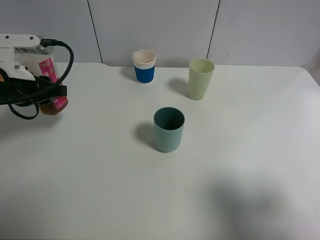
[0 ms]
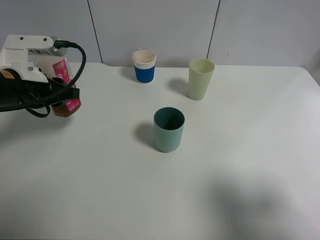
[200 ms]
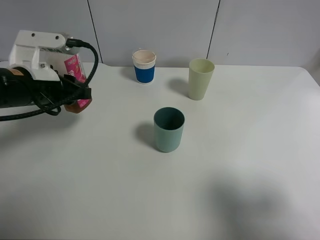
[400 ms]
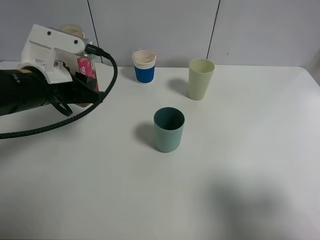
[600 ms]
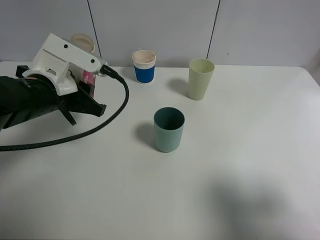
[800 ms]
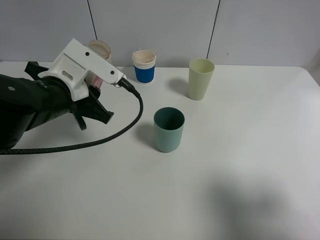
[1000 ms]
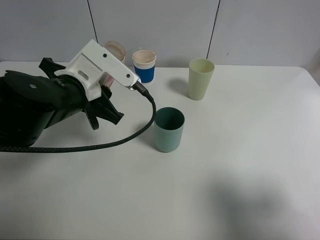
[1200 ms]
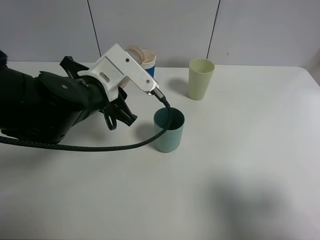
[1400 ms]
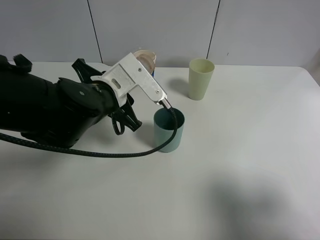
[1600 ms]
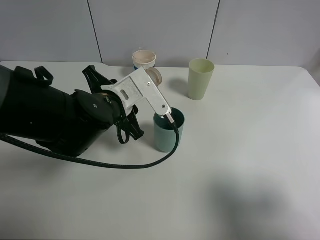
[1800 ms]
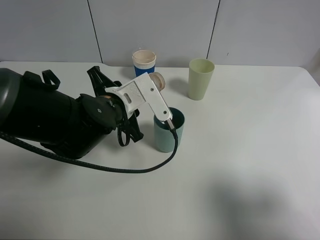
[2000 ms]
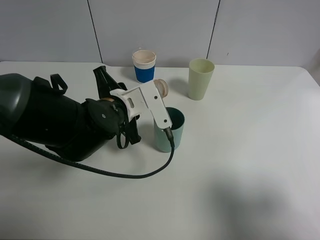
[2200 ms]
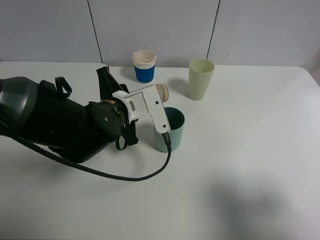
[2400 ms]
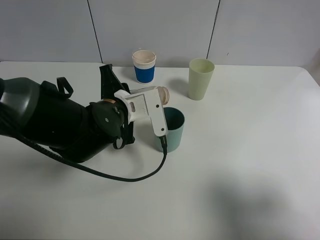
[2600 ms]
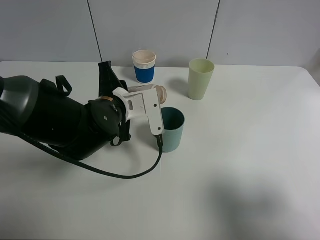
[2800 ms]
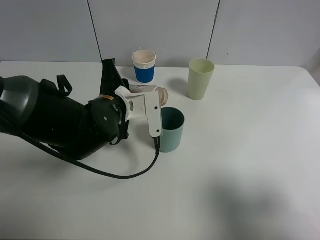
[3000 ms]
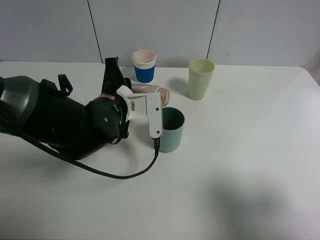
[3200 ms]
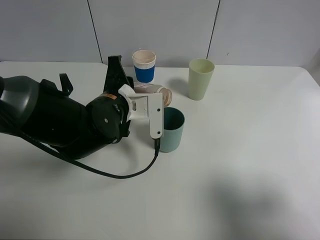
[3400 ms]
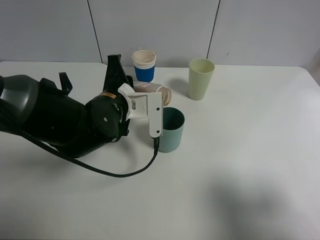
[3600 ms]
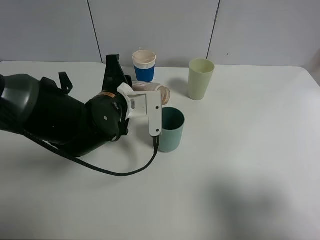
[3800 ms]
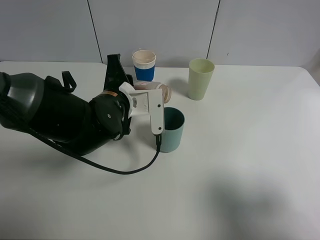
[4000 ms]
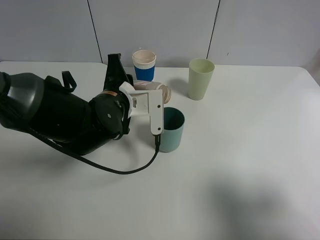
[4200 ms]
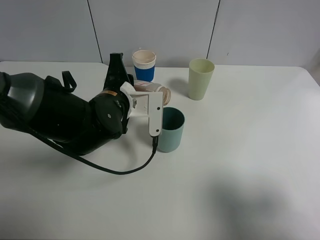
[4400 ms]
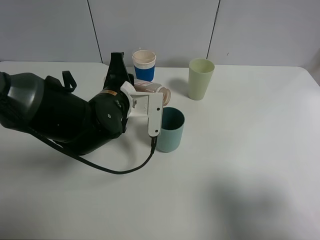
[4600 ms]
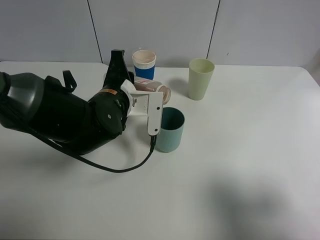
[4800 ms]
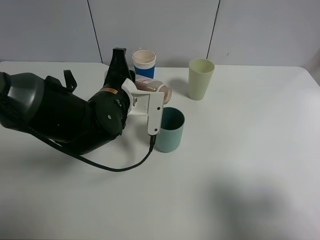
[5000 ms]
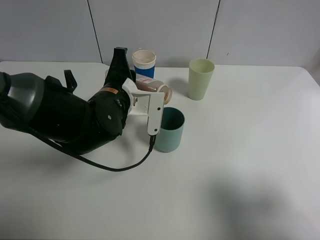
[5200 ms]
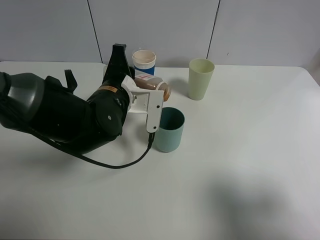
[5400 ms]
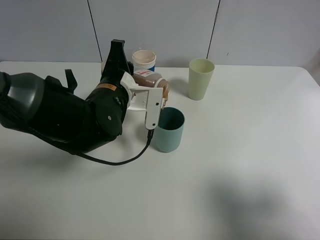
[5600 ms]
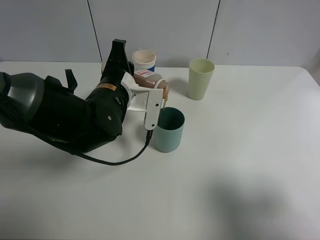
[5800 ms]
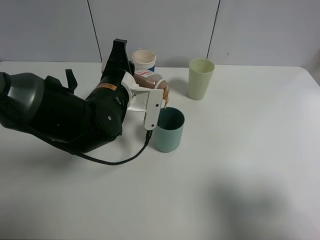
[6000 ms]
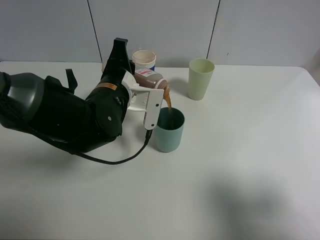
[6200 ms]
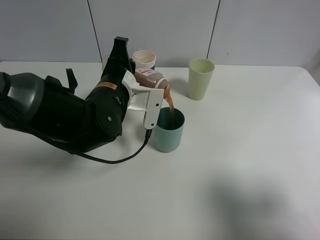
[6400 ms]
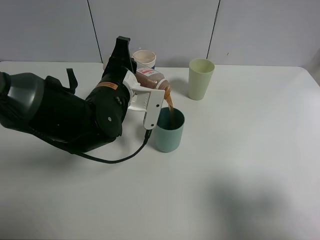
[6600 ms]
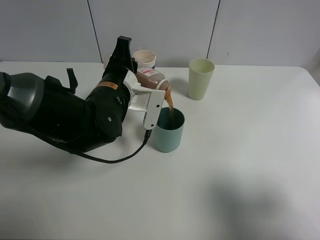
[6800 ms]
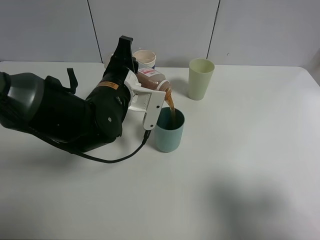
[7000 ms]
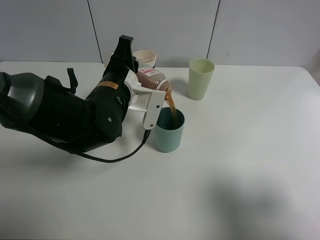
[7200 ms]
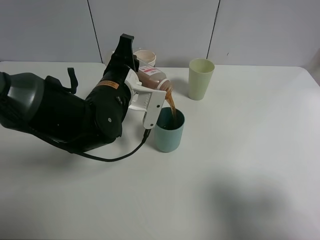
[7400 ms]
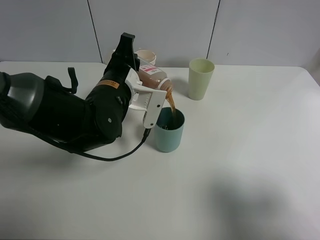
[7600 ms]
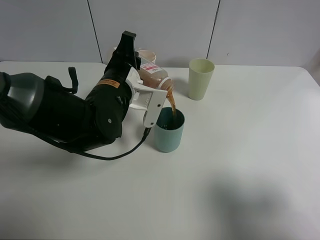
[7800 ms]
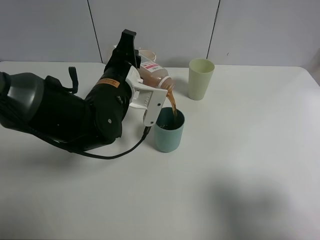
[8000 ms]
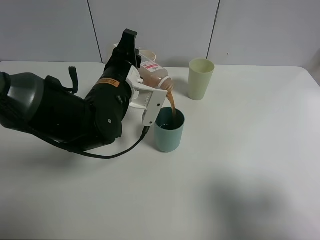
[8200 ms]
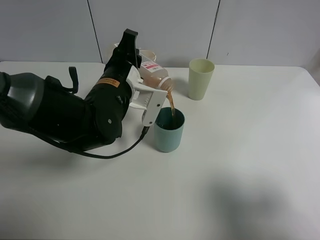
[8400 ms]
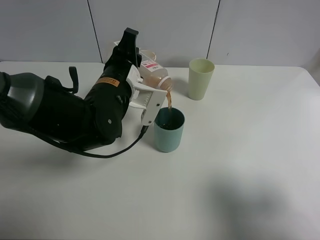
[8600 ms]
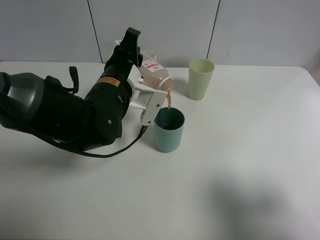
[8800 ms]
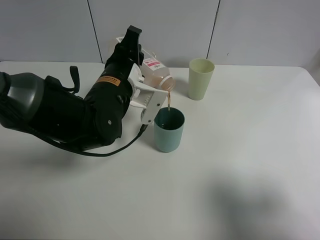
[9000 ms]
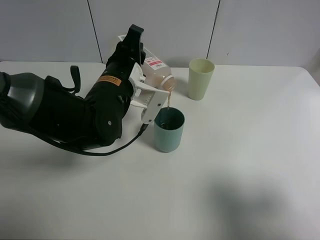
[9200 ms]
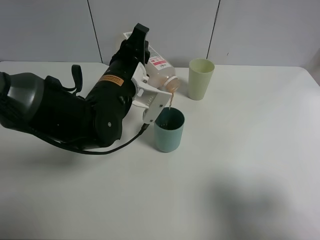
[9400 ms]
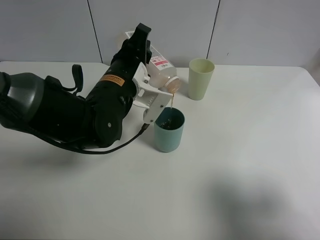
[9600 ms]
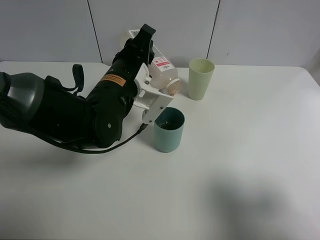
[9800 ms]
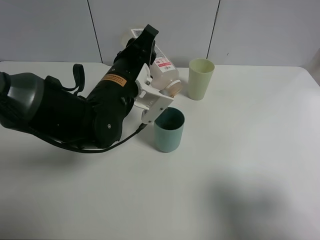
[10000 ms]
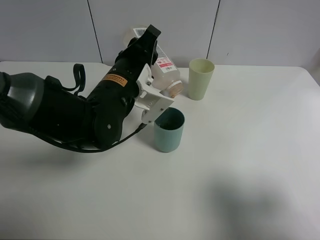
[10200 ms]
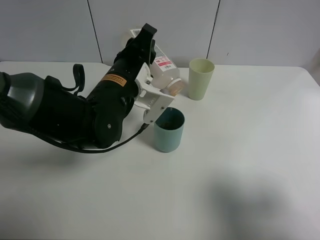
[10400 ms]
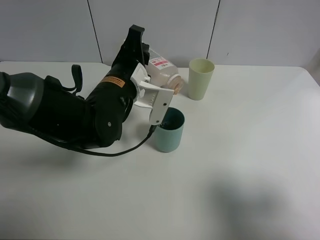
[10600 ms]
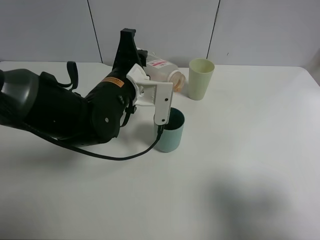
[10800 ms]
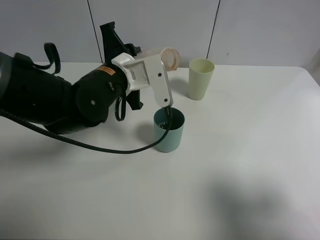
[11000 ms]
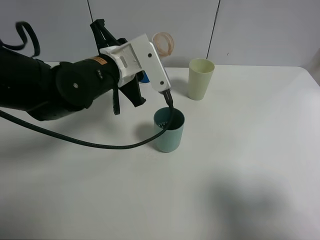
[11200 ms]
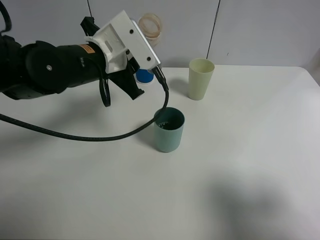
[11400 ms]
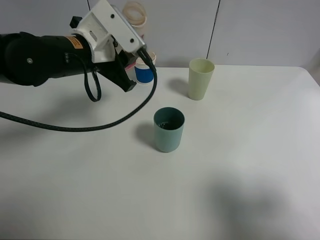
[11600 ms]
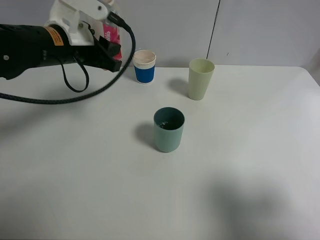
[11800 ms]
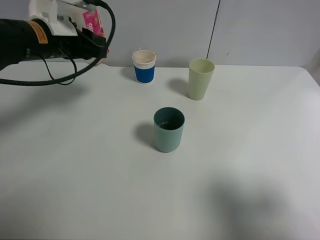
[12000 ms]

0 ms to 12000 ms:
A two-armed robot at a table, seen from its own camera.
Task of the whole recording: use a clamp to hold the bottle of the drink, pour the beverage into a random cup, then clamp the cup containing the drink and pour the drink into another random cup.
Step, 0 ms to 10400 ms: Pour the drink into the blue plastic cup with left gripper.
0 ms to 1600 ms: The left gripper is displaced to the right by some 15 cm.
3000 ms to 6000 ms: There are only small adjustments of the grippers.
6000 ms to 9000 ms: The grippers stay close to where they were, moving slightly.
9000 ms to 10400 ms: There are only small adjustments of the grippers.
10400 ms to 12000 ms: The left gripper travels to the left, forward and upward by approximately 15 cm.

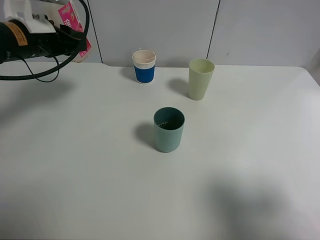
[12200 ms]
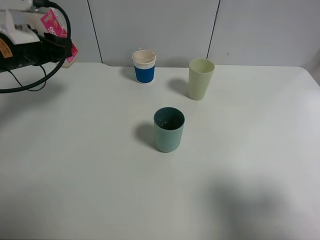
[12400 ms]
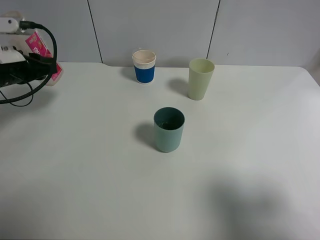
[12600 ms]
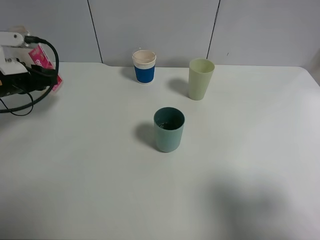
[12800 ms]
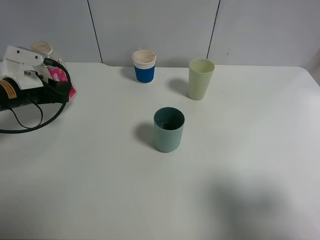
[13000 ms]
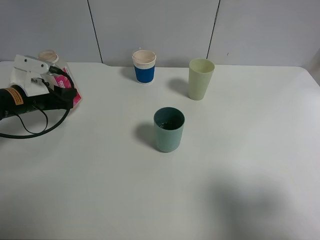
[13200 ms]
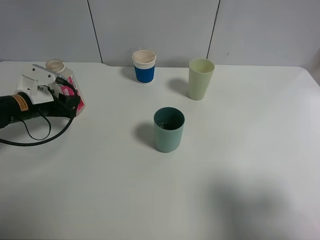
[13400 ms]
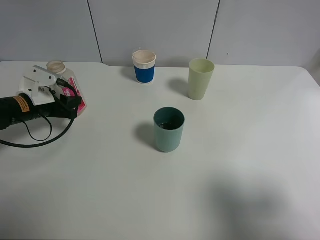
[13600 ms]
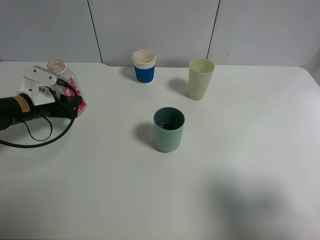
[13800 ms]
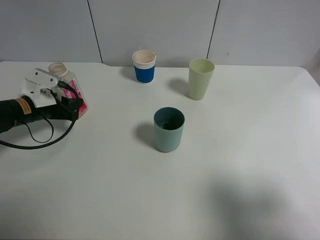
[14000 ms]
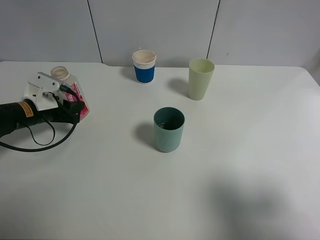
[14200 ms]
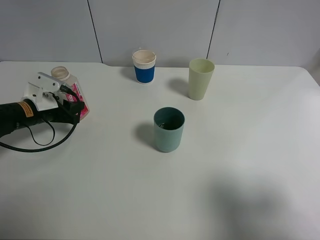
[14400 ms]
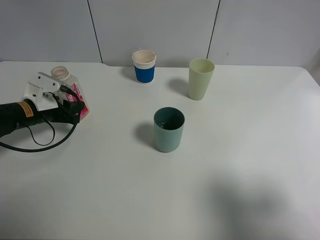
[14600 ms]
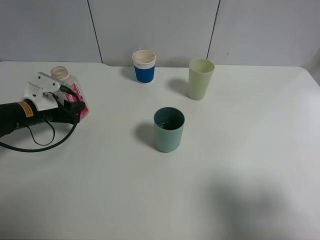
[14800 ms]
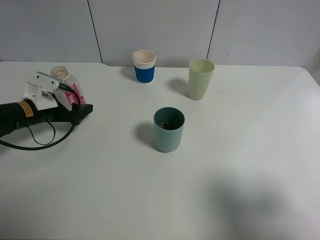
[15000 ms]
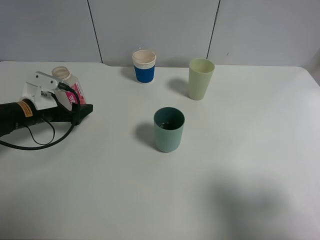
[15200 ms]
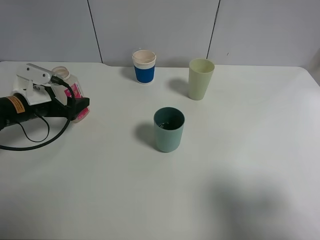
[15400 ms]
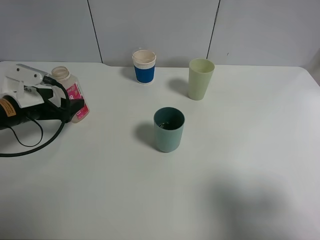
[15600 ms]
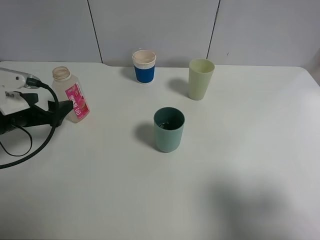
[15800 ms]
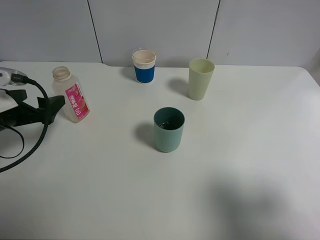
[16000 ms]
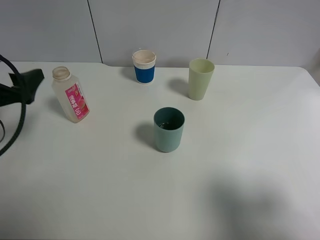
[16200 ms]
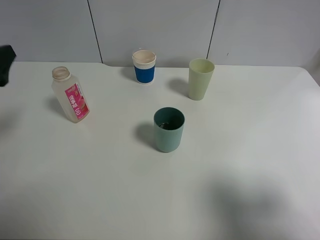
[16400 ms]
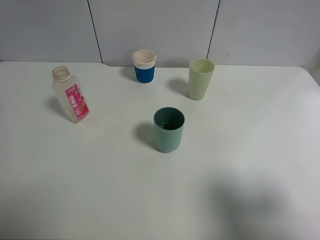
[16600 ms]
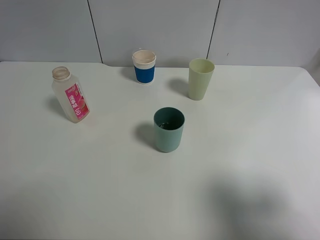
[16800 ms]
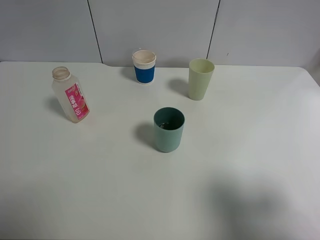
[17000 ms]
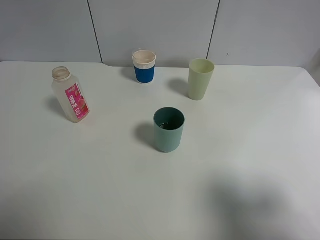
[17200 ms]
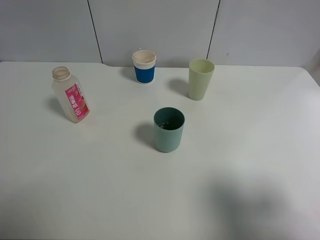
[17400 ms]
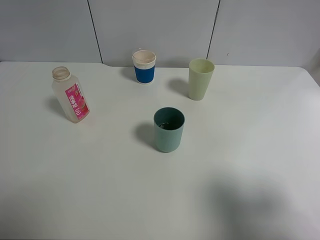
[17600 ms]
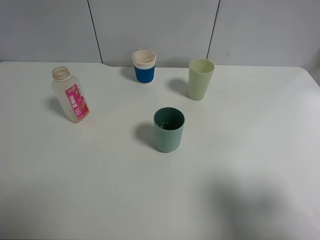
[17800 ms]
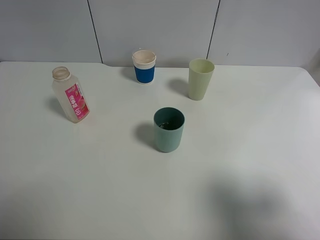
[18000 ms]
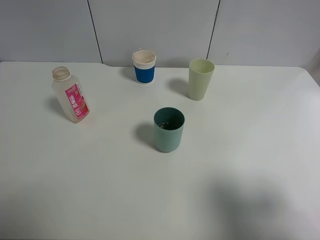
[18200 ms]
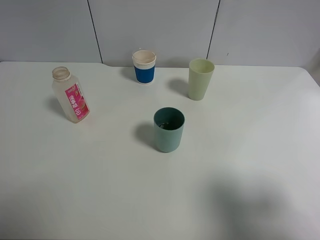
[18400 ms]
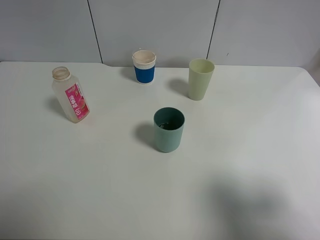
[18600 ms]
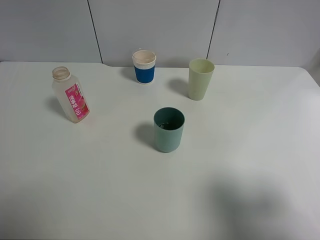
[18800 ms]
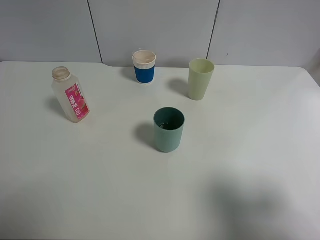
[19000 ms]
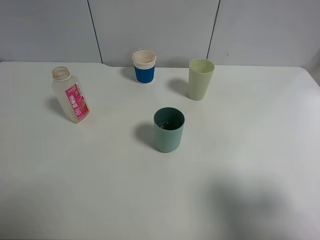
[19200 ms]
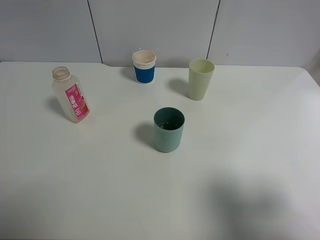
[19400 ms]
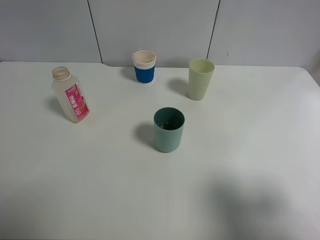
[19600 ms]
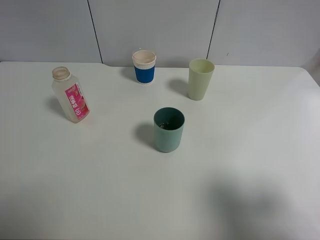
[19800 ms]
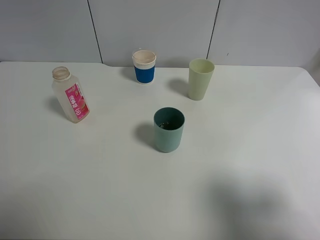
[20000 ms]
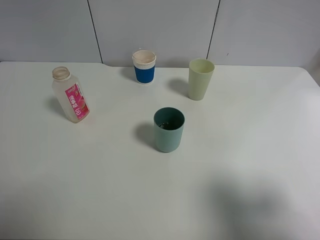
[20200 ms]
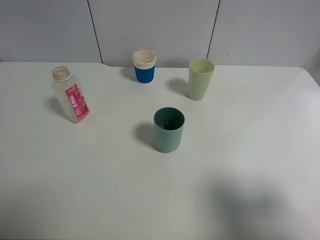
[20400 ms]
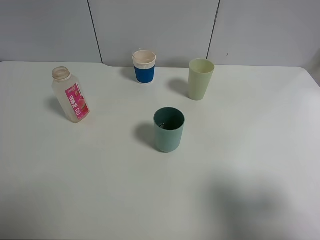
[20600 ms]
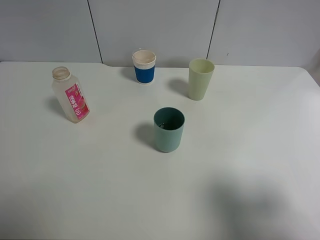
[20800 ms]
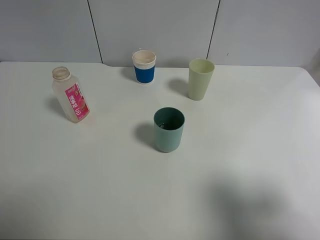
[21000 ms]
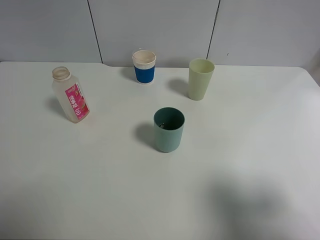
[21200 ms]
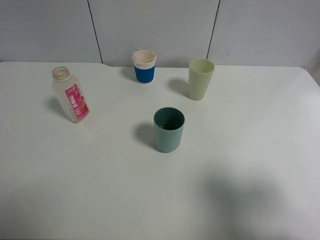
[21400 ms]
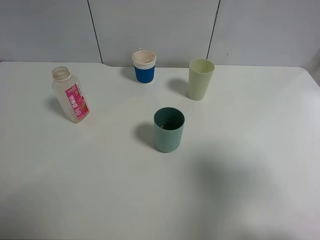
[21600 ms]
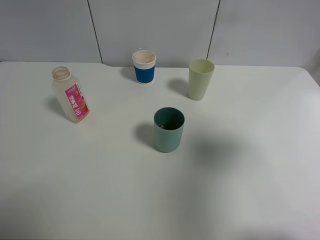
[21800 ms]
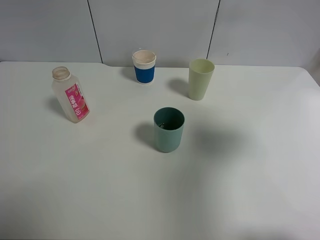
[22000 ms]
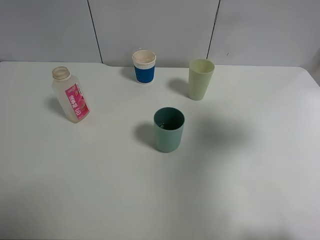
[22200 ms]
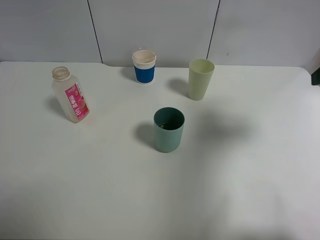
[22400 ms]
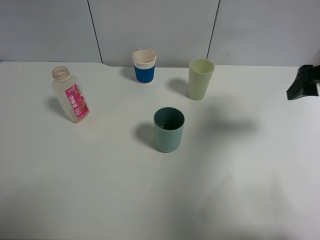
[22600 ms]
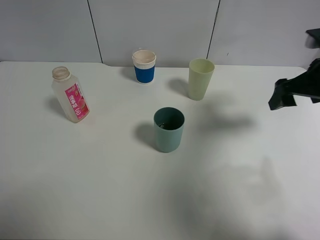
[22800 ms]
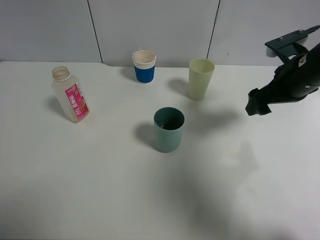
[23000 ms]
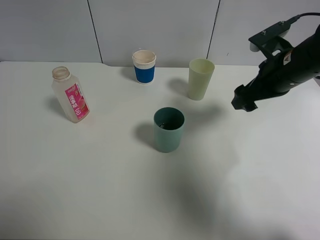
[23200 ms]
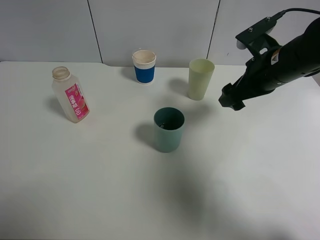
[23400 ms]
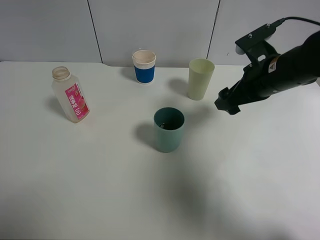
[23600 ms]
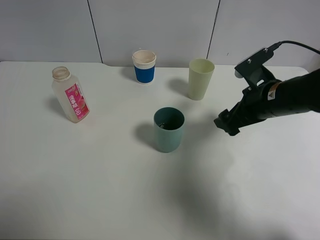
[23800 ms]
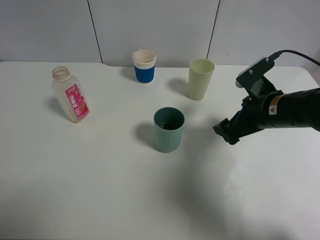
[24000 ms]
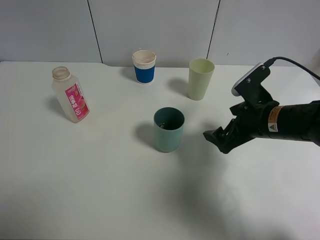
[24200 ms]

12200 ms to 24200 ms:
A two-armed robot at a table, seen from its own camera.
Task of the whole recording: use a clamp to hold the bottle of the drink, pour the beverage into a random cup, then clamp the cup containing the drink and pour the drink into another random cup.
Step, 12200 ms to 14800 ms: Place the drink bottle on the table with left gripper.
12200 ms to 13800 ms: The left gripper is displaced downward by roughly 15 cm.
13800 ms to 15200 ms: The left gripper opens its fingers.
15200 ms to 16600 ms: The left gripper shifts about 25 cm upward and backward.
19800 ms to 21200 ms: The two grippers keep their place.
21200 ms to 22600 ms: The right gripper travels forward by about 25 cm.
22600 ms to 24200 ms: The right gripper heads downward and to the left, covering roughly 15 cm.
